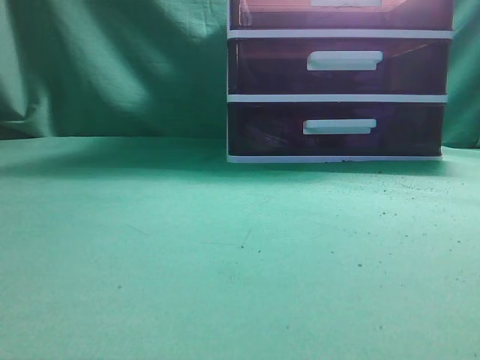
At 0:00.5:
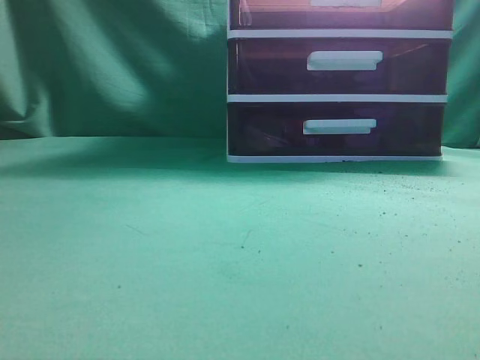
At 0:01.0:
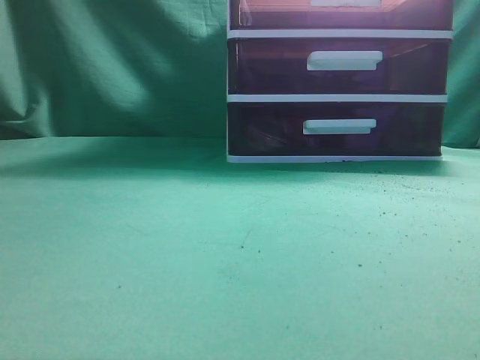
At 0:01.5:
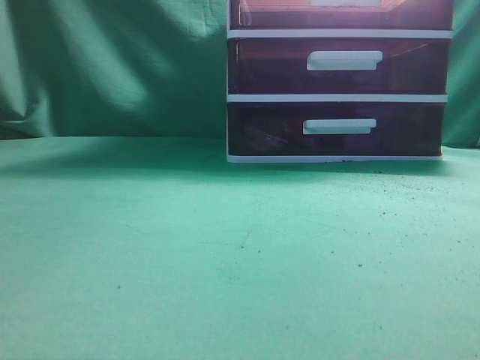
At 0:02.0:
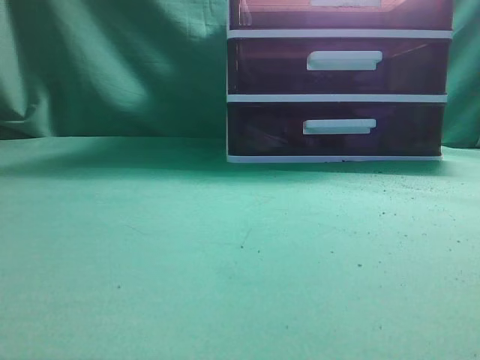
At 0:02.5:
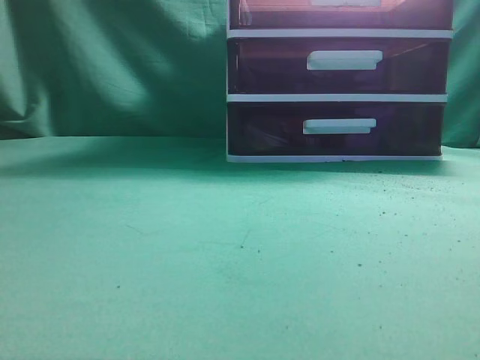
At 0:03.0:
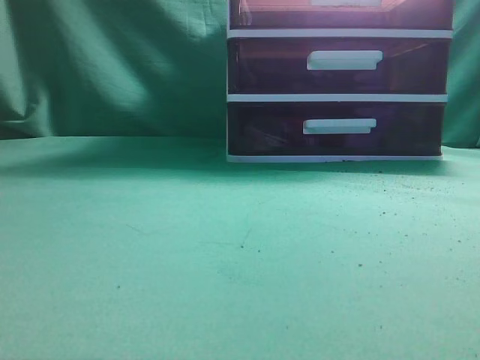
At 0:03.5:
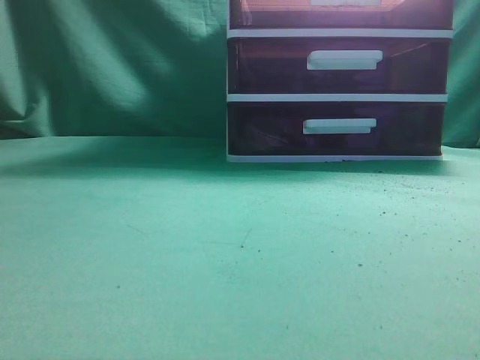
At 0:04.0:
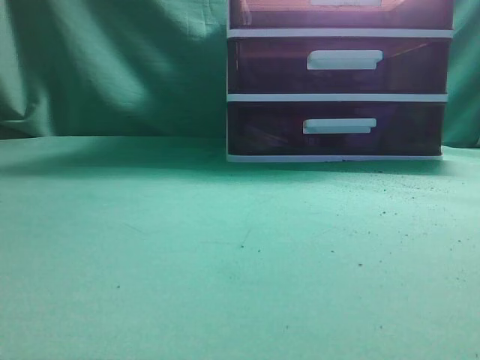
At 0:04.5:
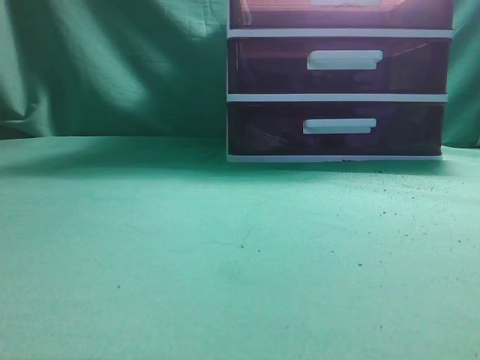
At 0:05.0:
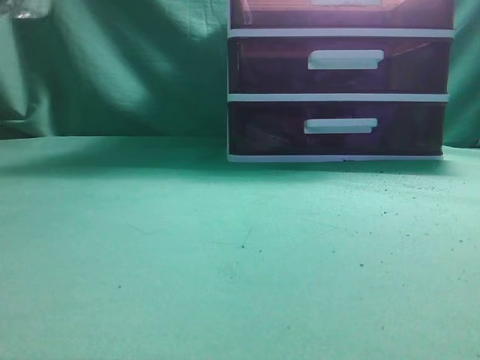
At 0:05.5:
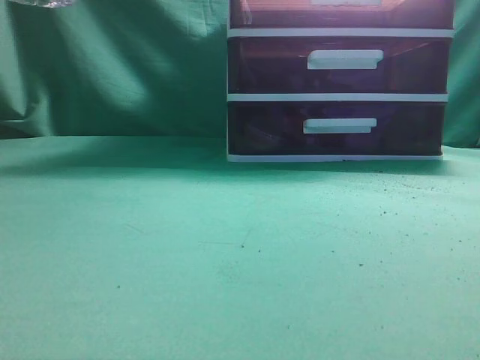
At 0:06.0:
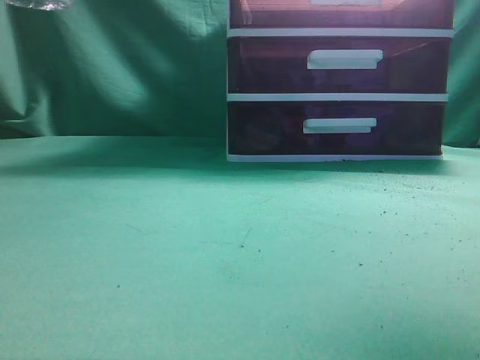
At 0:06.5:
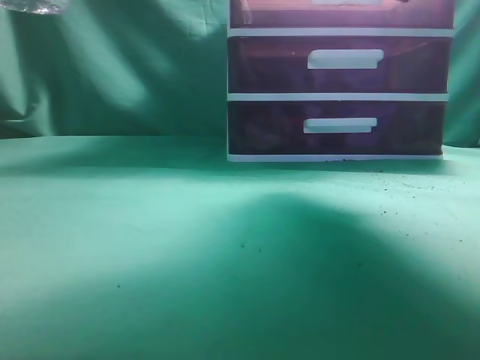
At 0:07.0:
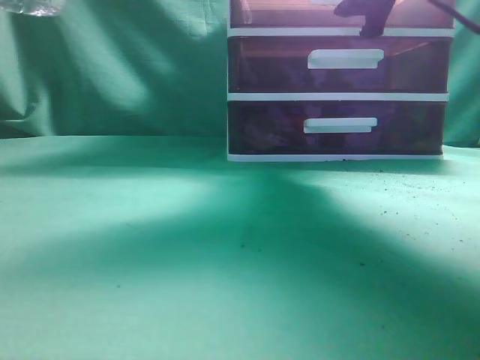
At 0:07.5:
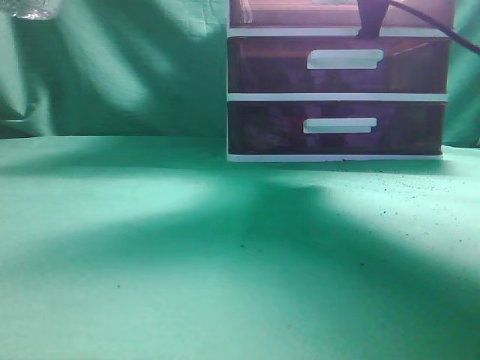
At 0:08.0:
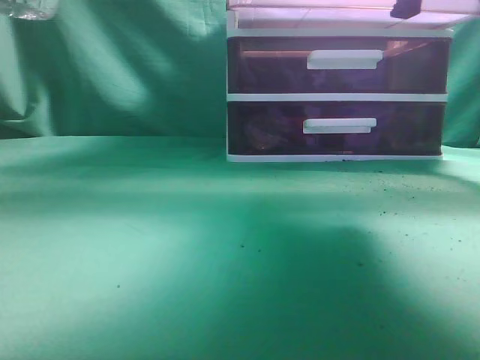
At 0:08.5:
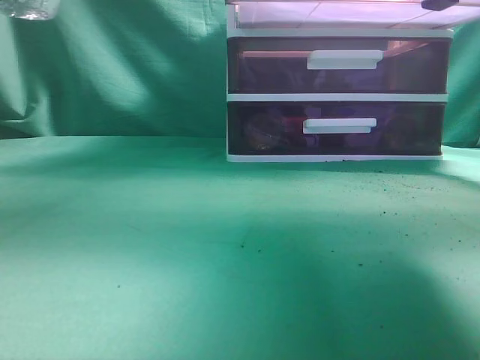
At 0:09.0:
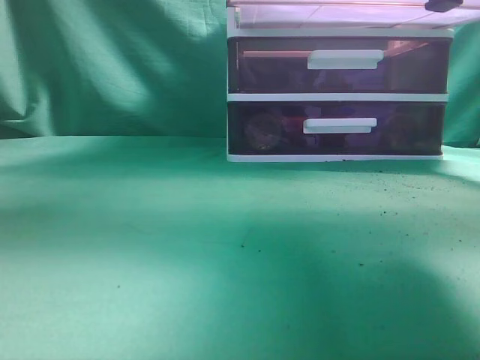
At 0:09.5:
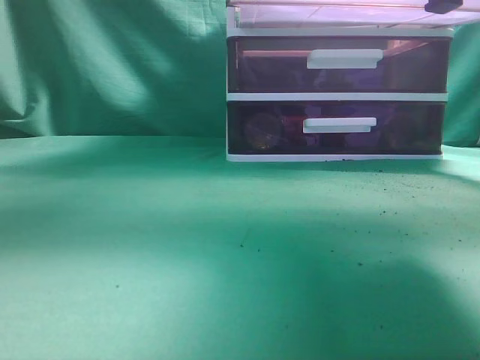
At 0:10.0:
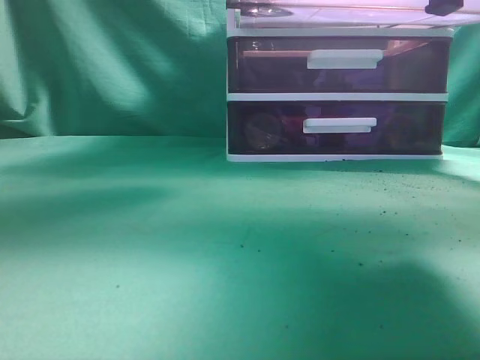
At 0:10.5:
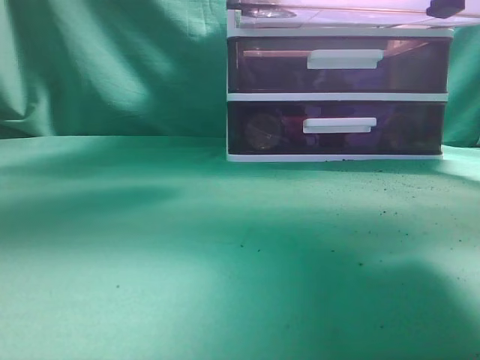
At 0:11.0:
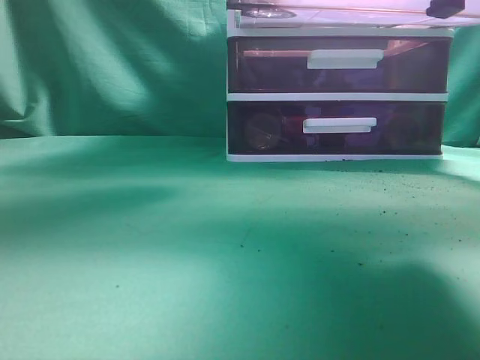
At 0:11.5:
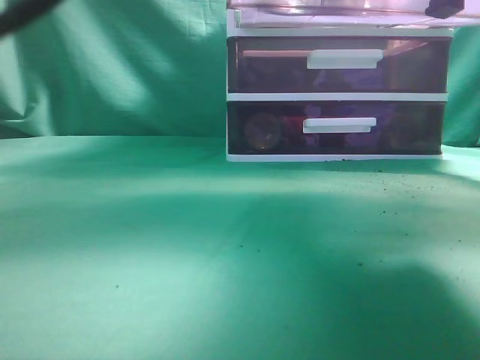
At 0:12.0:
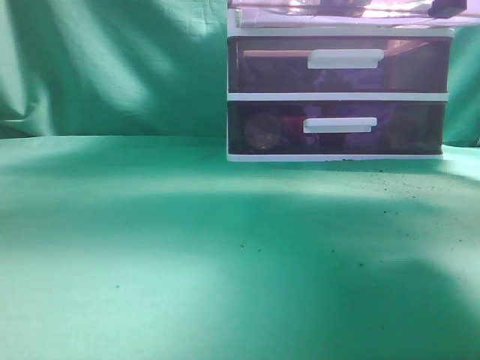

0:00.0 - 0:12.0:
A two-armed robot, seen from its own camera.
Task of the whole recording: place the water bottle into the drawer.
Step, 0:00.0 - 0:08.5: Open the drawer.
Step, 0:09.5 - 0:11.5: Place the water bottle inside the drawer.
0:04.0 - 0:06.0: The right gripper shifts about 25 cm forward and upward, and opens its fingers.
0:06.0 - 0:08.0: The right gripper is displaced forward, downward and to the left by about 15 cm, and opens and closes again.
0:08.0 - 0:10.0: The right gripper is displaced backward by roughly 5 cm; the left gripper shifts some 25 cm to the right and forward.
0:10.0 - 0:12.0: The left gripper moves to the right, about 5 cm.

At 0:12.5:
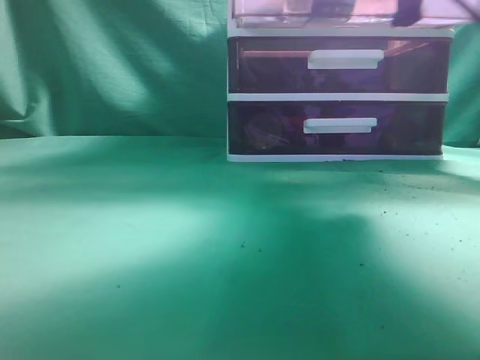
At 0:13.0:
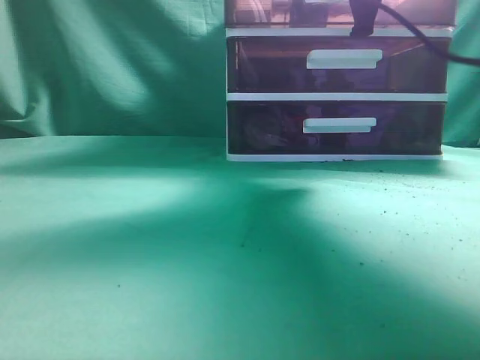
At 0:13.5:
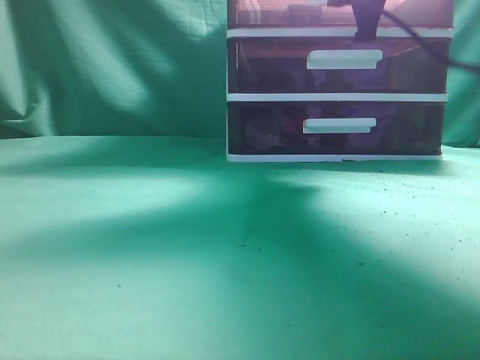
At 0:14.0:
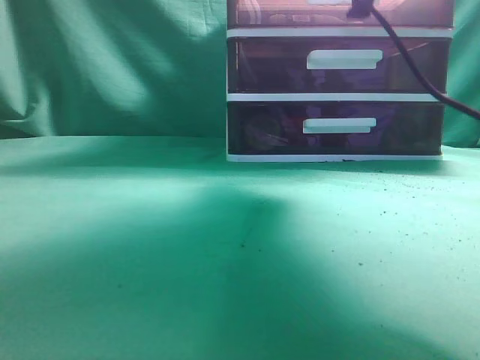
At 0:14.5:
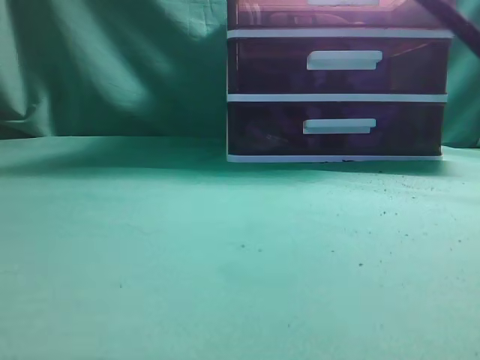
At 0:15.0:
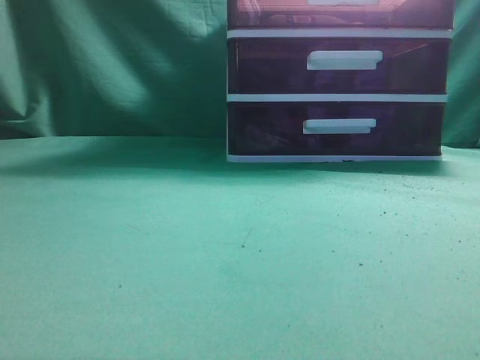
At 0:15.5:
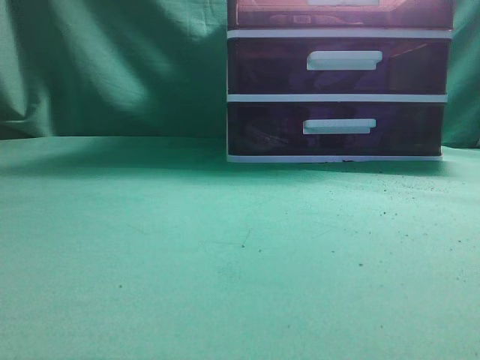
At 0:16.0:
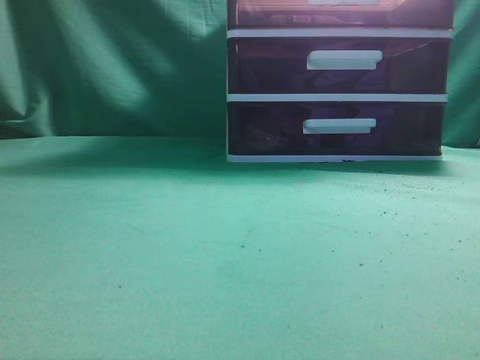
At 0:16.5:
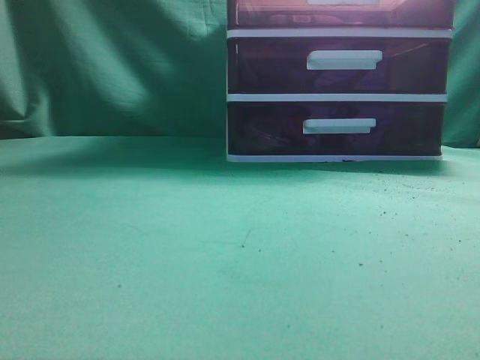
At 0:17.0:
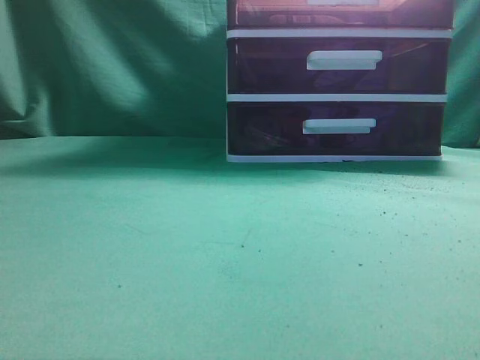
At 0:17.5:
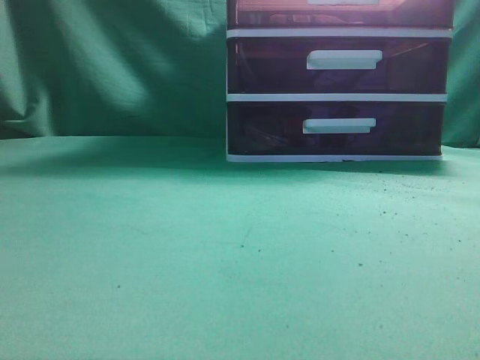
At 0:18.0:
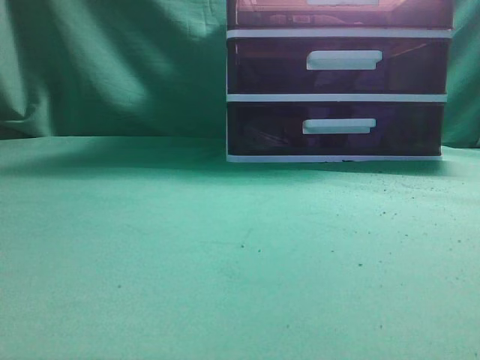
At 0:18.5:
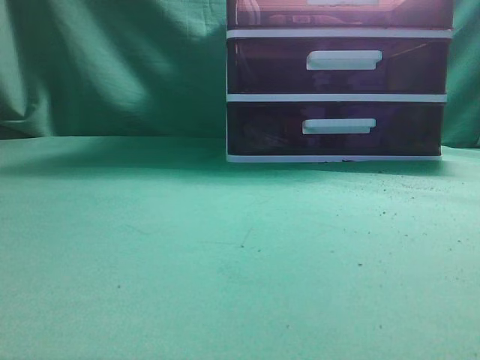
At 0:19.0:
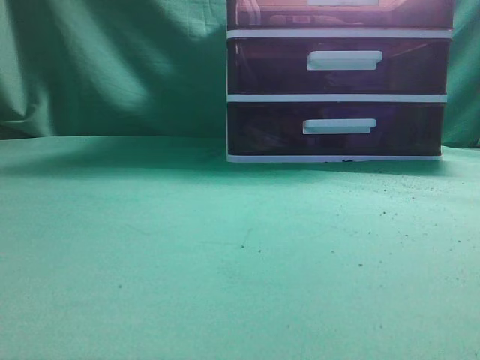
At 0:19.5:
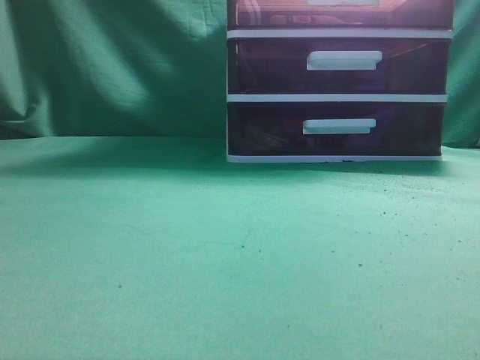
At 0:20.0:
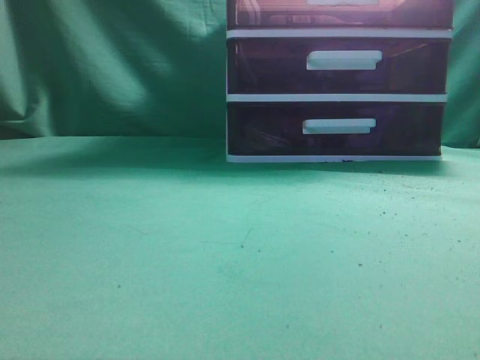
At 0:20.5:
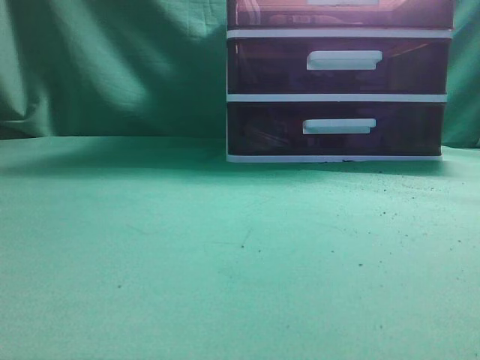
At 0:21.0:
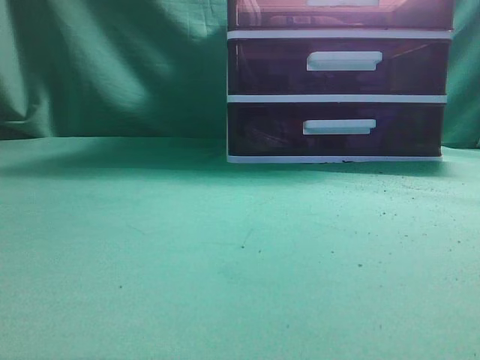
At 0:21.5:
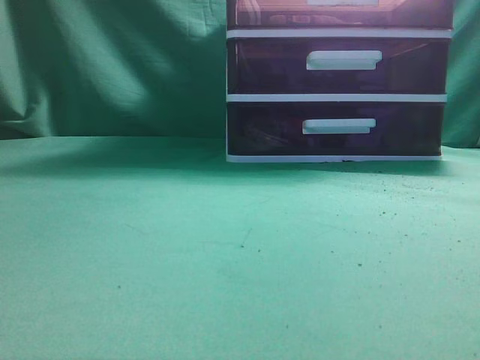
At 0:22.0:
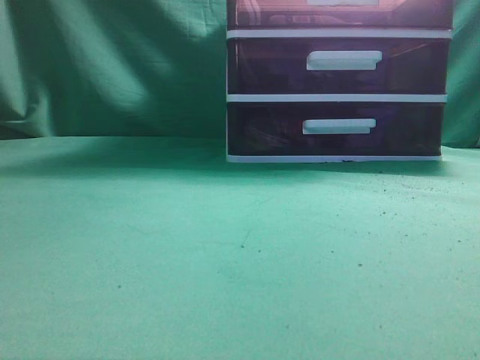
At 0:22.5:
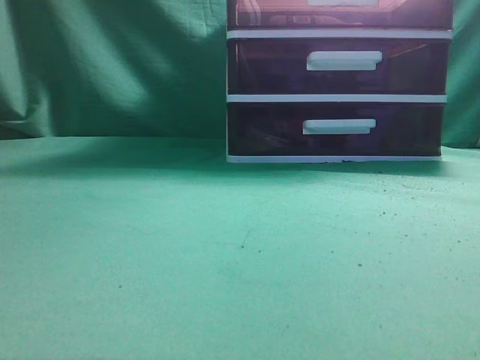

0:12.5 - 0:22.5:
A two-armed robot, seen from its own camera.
Task of the whole recording: place the water bottle into the drawer.
Step, 0:12.5 - 0:14.0: Close the drawer.
0:12.5 - 0:14.5: The right gripper moves to the left, upward and backward, about 10 cm, and opens and closes again, while the left gripper goes roughly 15 cm backward and to the left.
0:14.5 - 0:16.5: The right gripper goes approximately 20 cm backward and upward, and closes.
